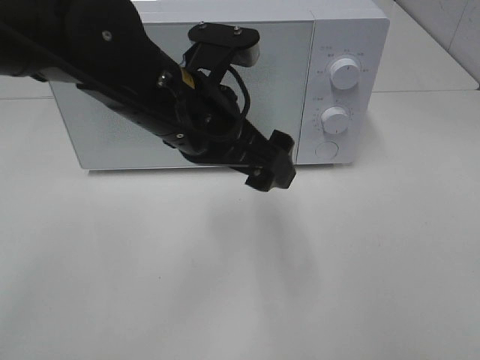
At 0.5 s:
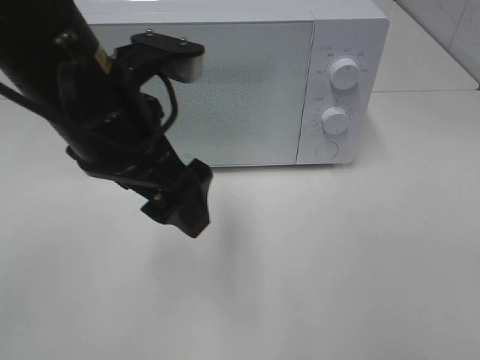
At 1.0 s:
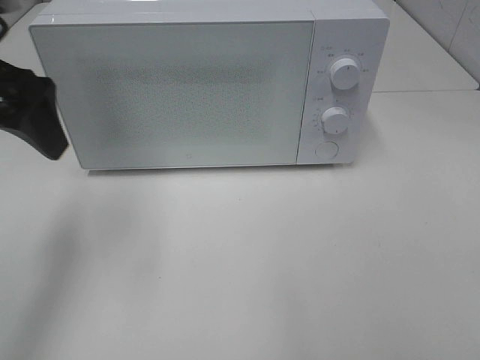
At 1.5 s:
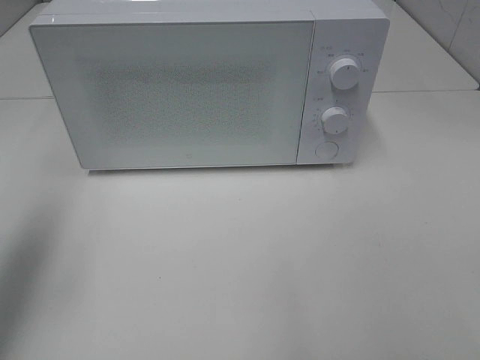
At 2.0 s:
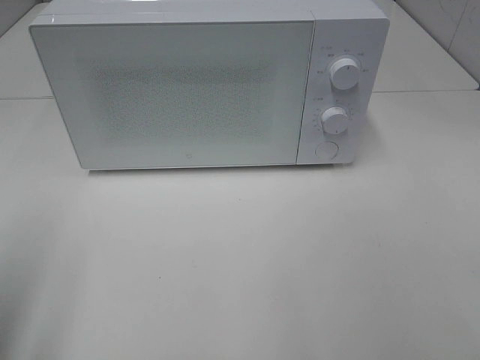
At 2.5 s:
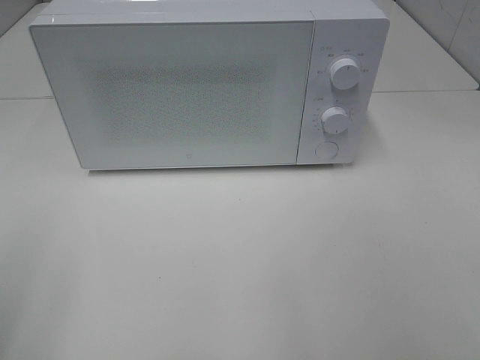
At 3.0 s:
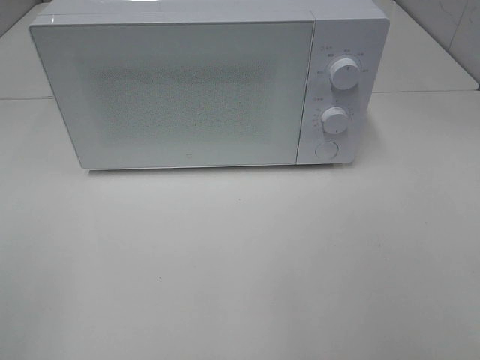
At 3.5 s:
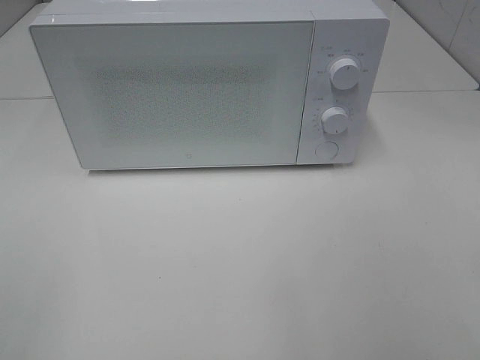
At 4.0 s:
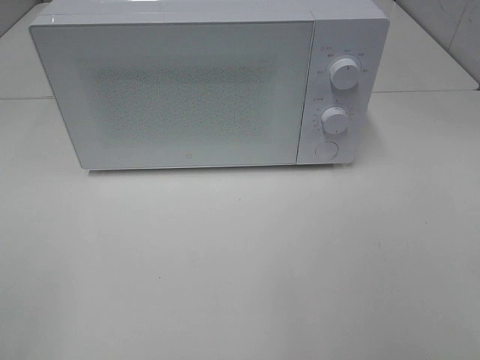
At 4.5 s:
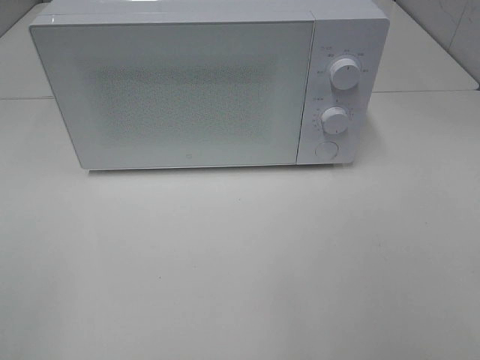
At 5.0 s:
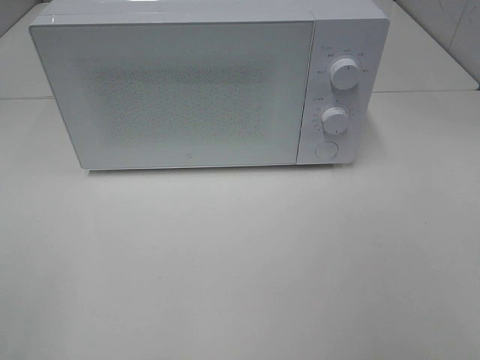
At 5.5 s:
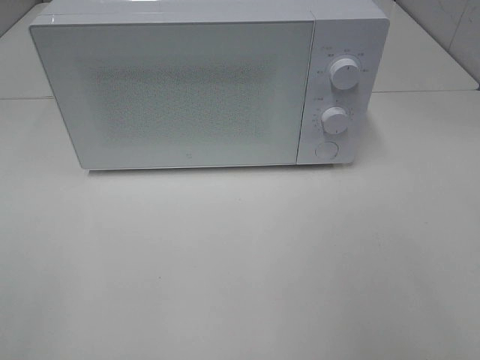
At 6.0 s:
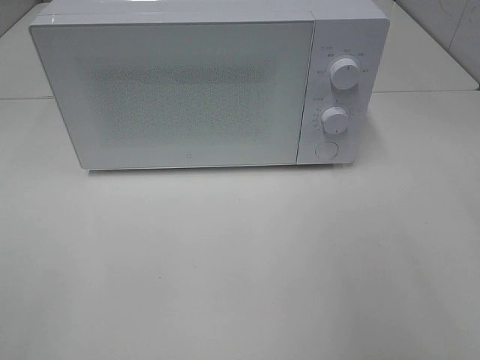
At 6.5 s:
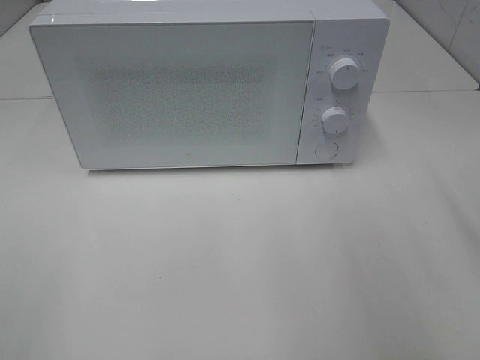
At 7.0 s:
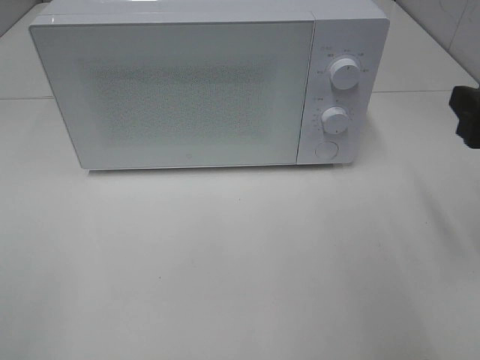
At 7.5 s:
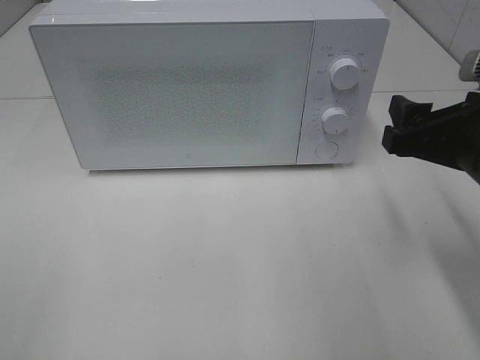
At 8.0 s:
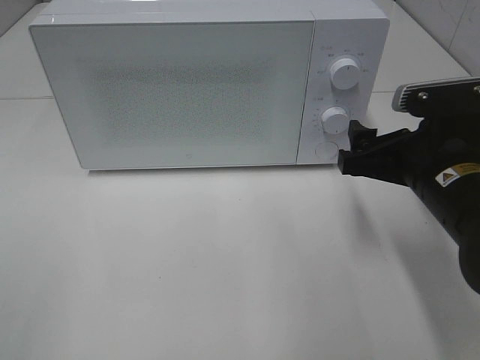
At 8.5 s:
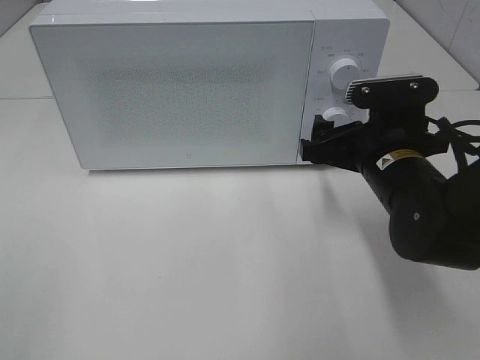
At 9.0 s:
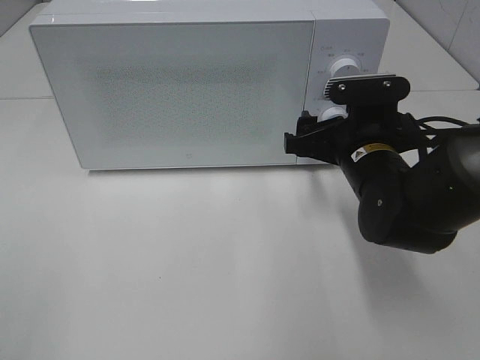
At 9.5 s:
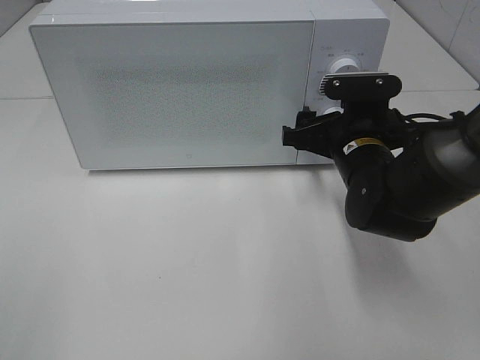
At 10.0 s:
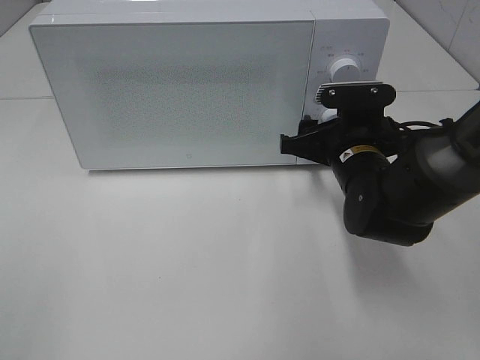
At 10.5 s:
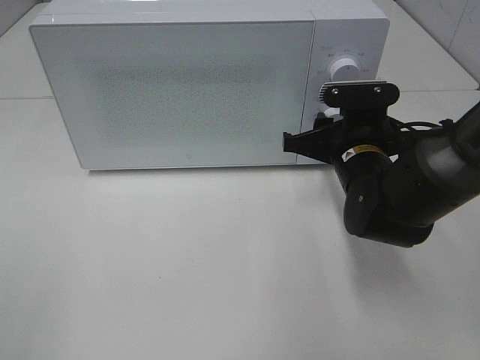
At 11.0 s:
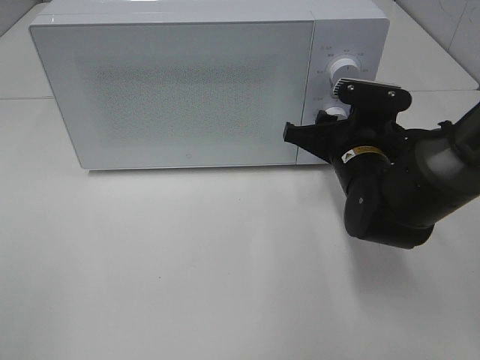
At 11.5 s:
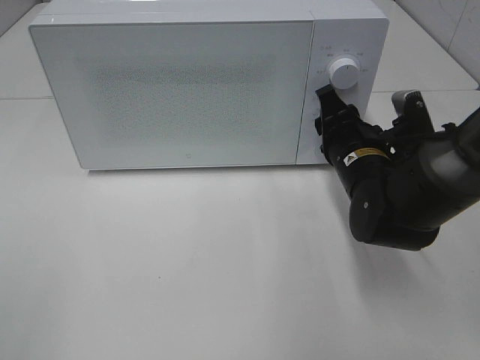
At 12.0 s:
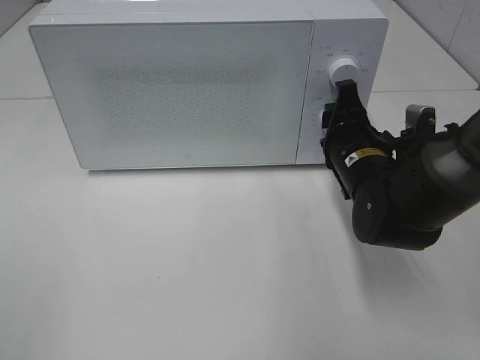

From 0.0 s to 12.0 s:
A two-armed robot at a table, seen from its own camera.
Task of the whole recording: Heat the burger.
From 0.0 s to 2.0 s: The left gripper heads to the left and backward, covering roughly 30 cm.
From 6.0 s to 8.0 s: The right gripper shifts some 20 cm downward, to the left and forward.
From 8.0 s to 10.0 s: The right gripper moves forward and downward, about 10 cm.

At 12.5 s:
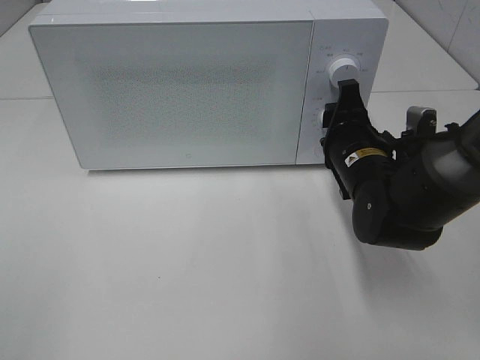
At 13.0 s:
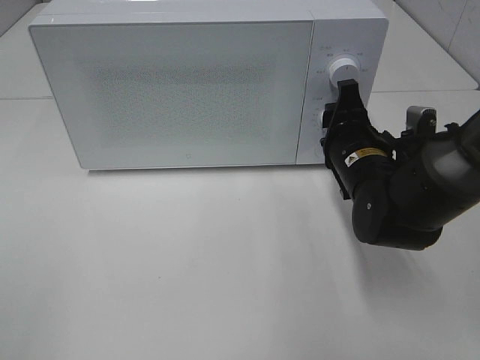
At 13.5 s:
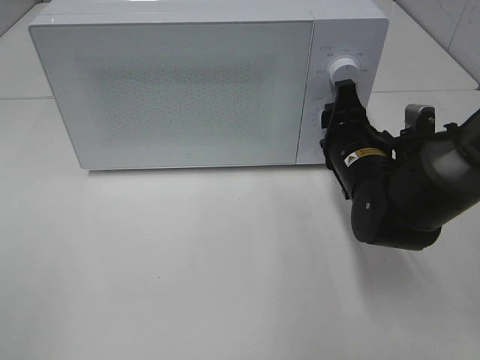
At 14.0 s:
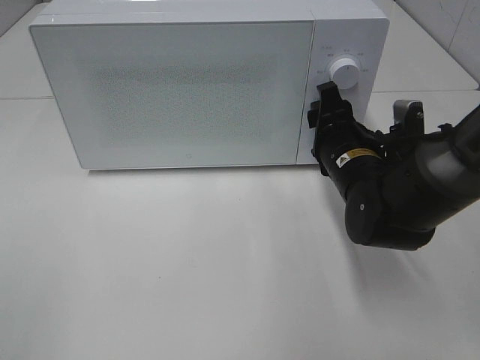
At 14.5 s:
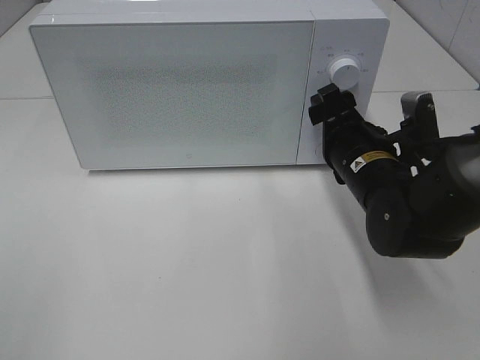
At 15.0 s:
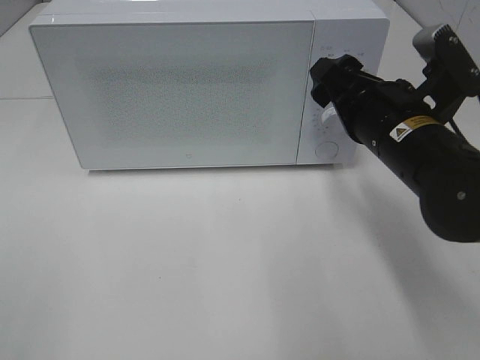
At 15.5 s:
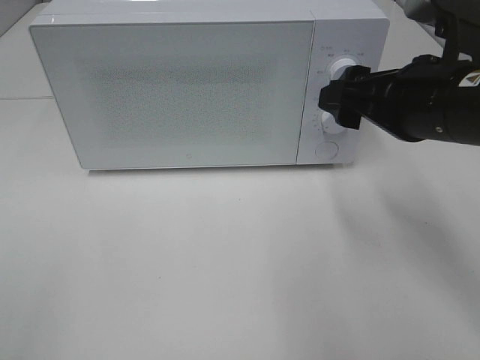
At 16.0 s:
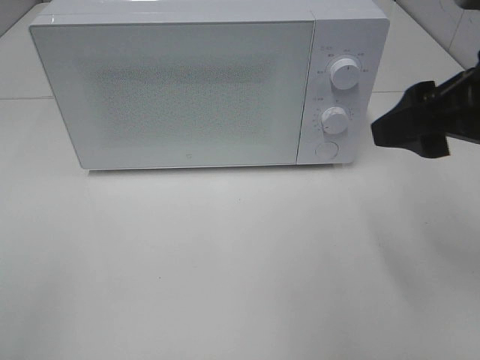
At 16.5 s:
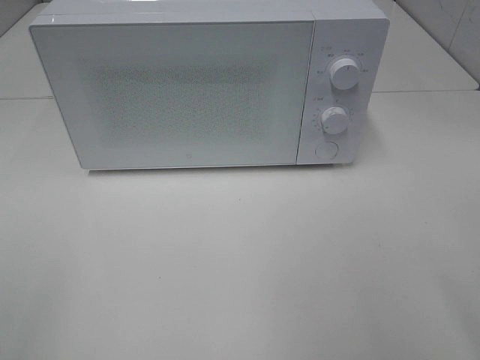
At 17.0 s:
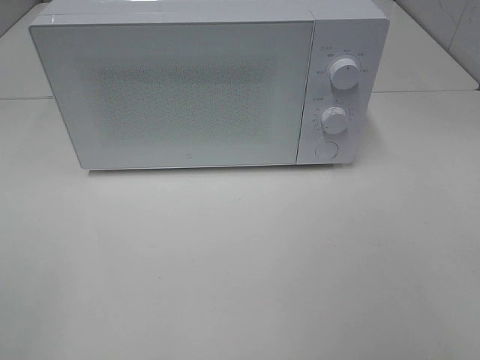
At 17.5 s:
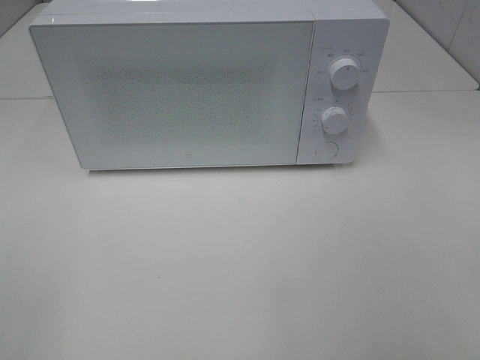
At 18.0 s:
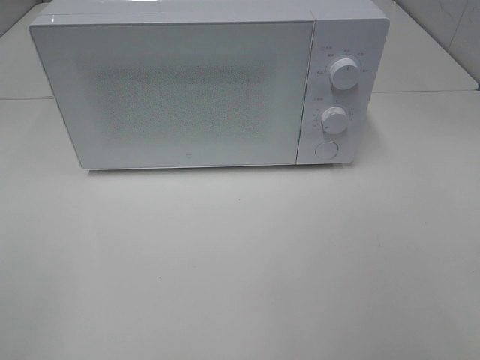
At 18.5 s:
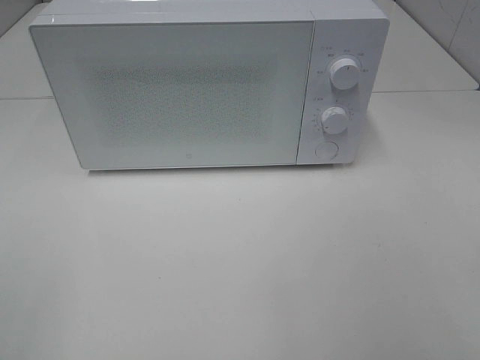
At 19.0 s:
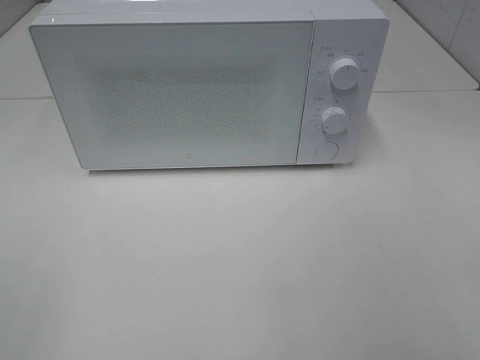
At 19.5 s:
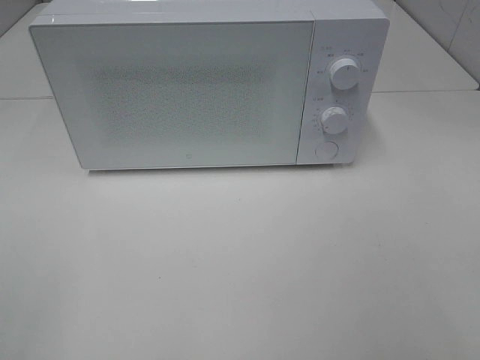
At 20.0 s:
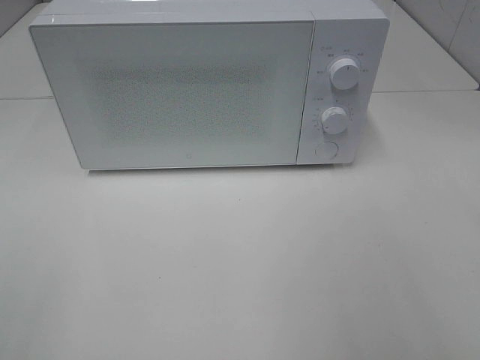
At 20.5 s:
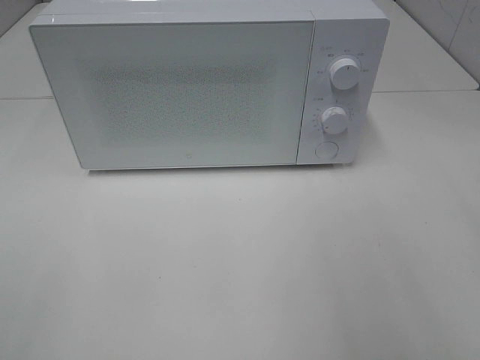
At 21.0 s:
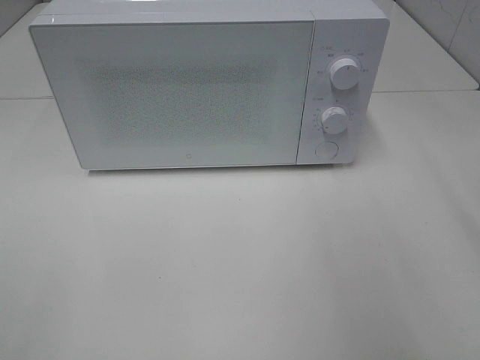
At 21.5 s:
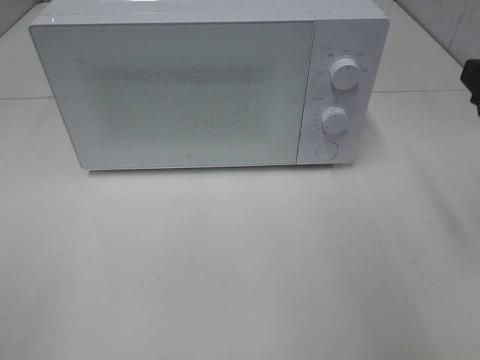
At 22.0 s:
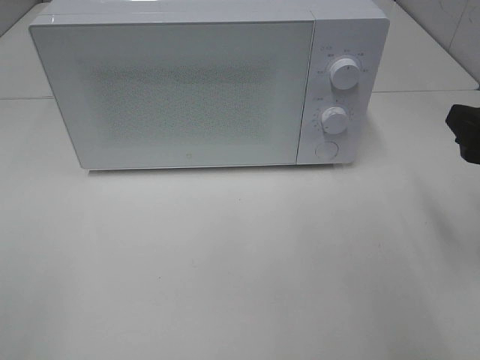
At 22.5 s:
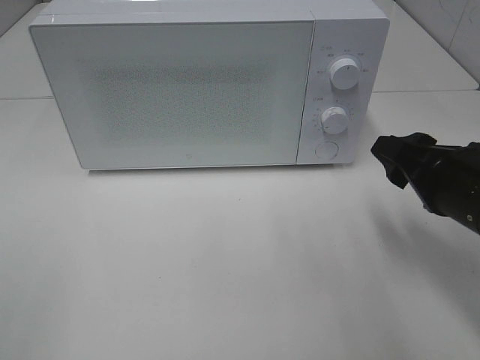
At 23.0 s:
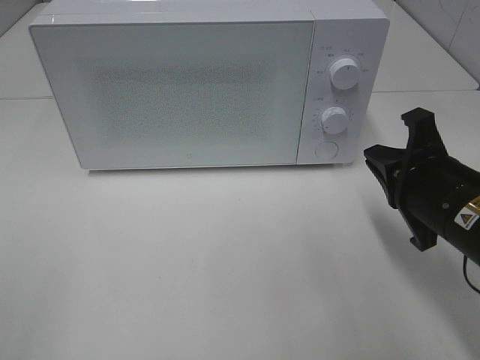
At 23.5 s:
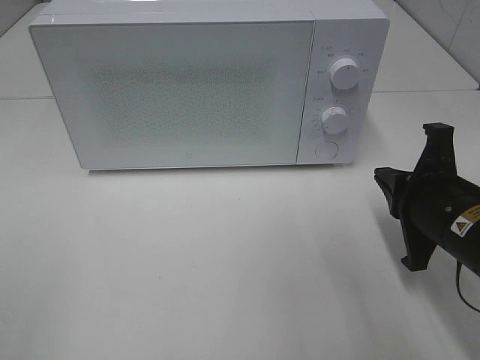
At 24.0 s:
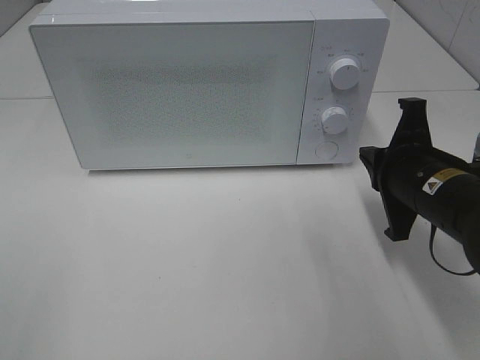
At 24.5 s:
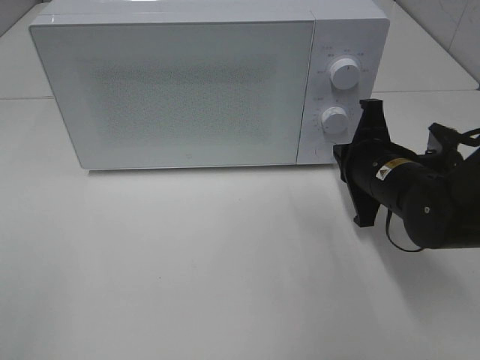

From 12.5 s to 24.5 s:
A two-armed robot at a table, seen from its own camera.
Task of the whole recording: Heat the burger.
From 12.5 s to 14.5 s: The right gripper opens.
From 14.5 s to 16.5 s: The right gripper travels backward, upward and to the right by about 30 cm.
From 20.5 s to 22.5 s: The right gripper moves downward, forward and to the left, roughly 20 cm.
From 22.5 s to 24.5 s: The right gripper travels forward and downward by approximately 10 cm, and closes.

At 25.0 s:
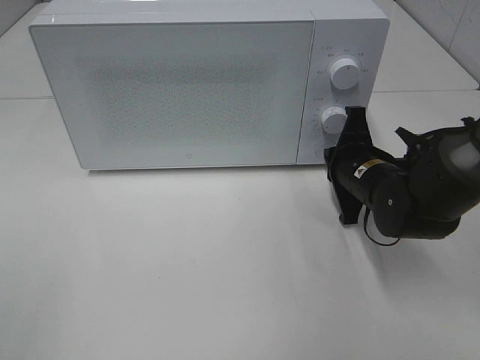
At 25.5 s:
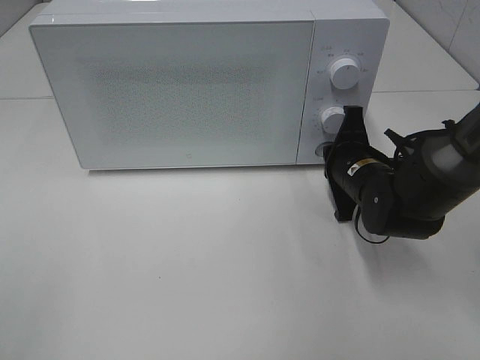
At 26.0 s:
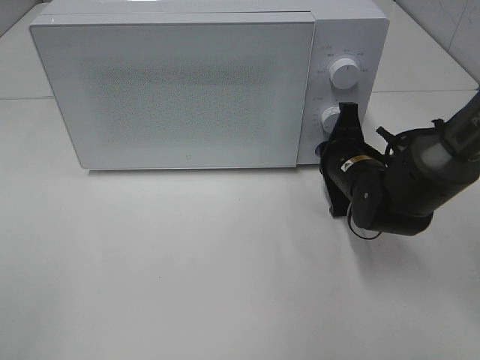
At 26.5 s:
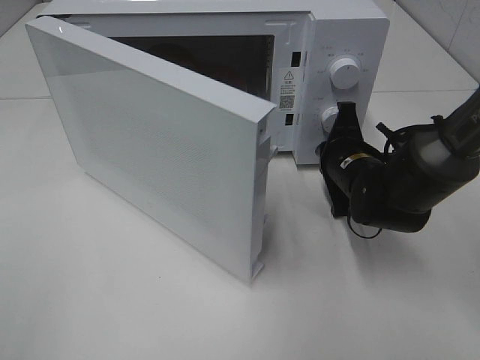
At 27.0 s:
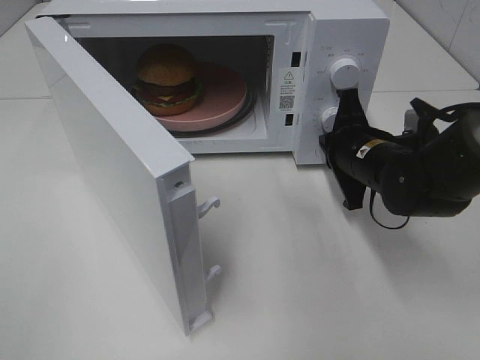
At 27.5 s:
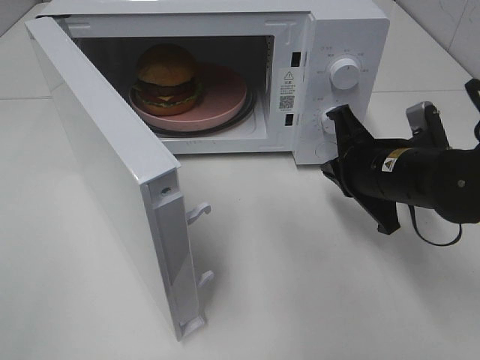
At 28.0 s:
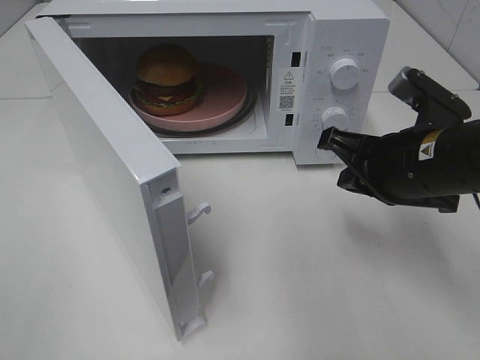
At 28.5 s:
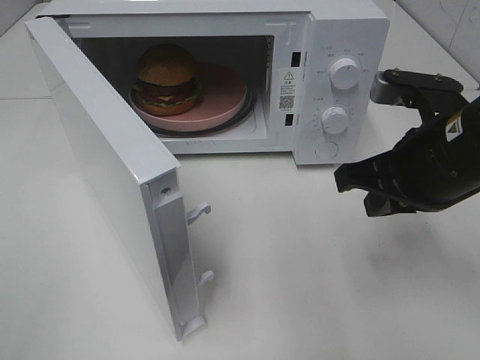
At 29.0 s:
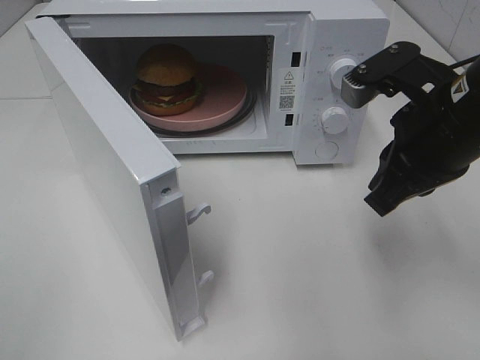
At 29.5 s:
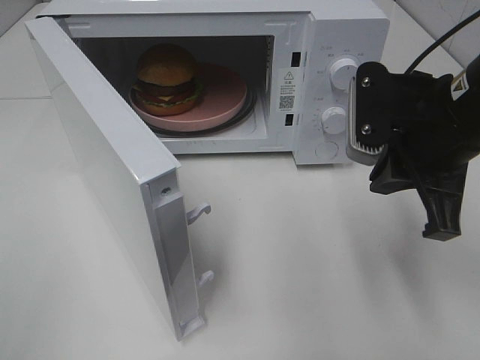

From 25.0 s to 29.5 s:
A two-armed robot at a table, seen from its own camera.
Task of the whole recording: Heat the burger.
Step, from 25.0 s to 27.0 s: Right hand: press the switch.
From 27.0 s to 29.5 s: The right gripper goes some 15 cm upward and backward.
